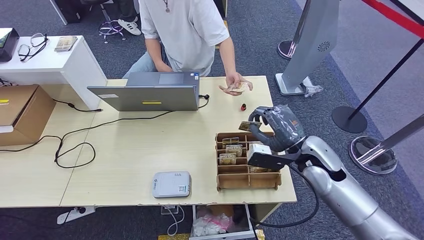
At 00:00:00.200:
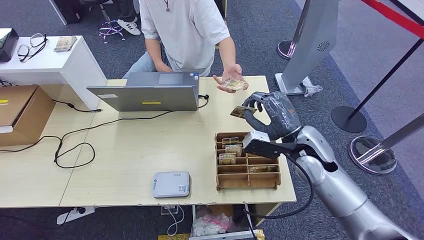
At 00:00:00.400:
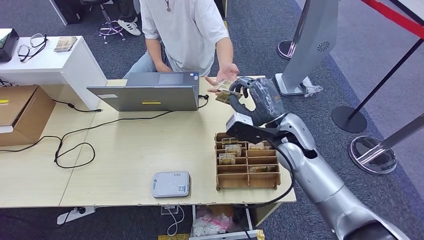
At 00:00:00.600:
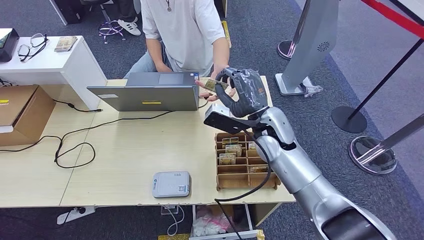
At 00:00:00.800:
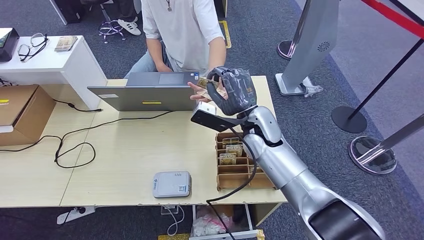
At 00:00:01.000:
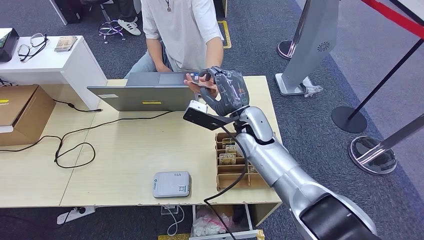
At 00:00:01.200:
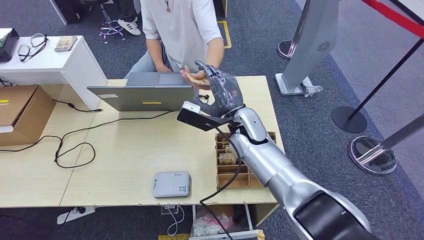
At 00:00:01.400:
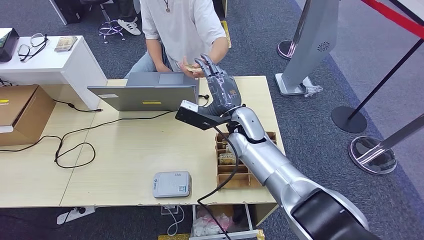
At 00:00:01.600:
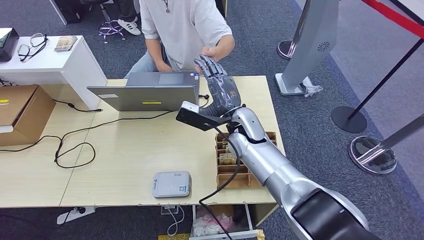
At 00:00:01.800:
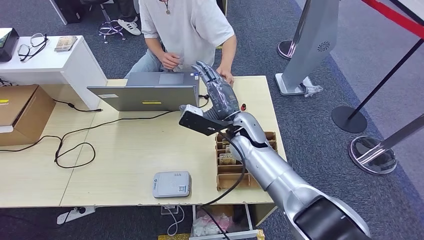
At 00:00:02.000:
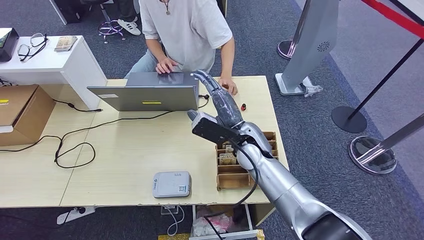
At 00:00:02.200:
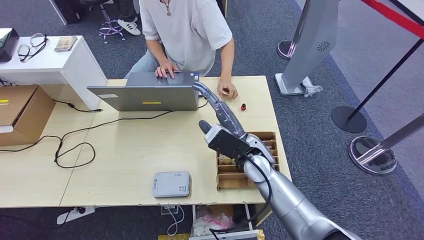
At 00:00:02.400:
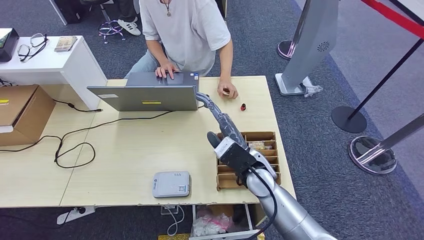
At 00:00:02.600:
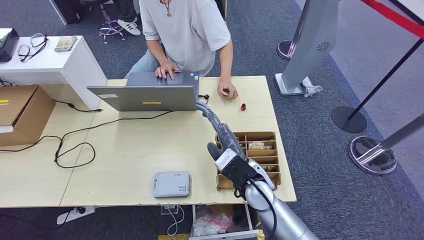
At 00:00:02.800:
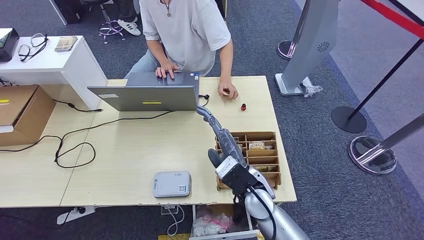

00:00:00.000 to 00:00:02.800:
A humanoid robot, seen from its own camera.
Step, 00:00:00.200 to 00:00:02.800: Hand the room key to the person.
00:00:00.000 to 00:00:01.400: The right hand shifts about 20 cm to the left and forward.
00:00:01.400 to 00:00:02.800: The right hand moves backward and downward, approximately 15 cm.
